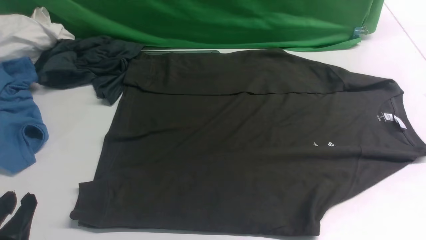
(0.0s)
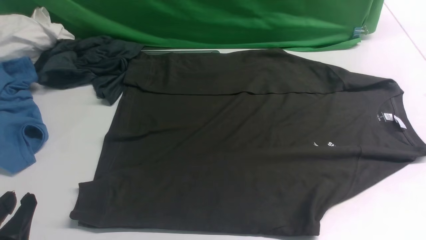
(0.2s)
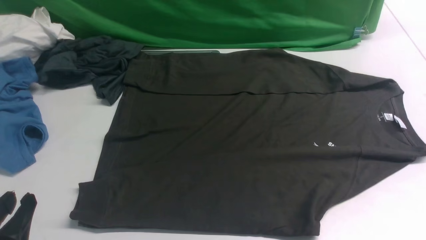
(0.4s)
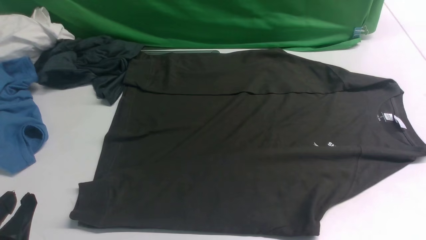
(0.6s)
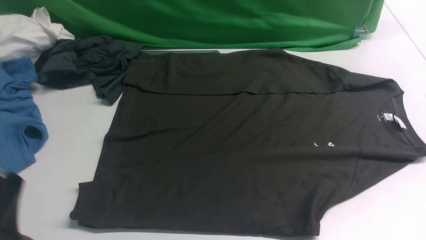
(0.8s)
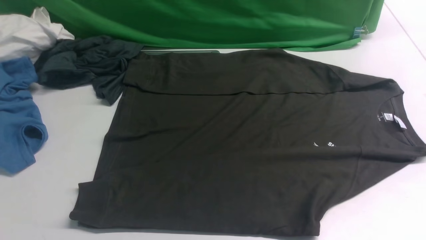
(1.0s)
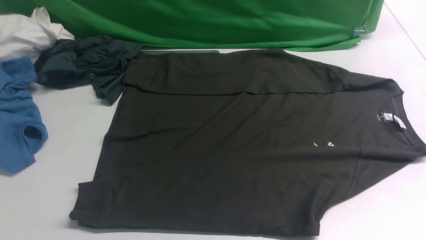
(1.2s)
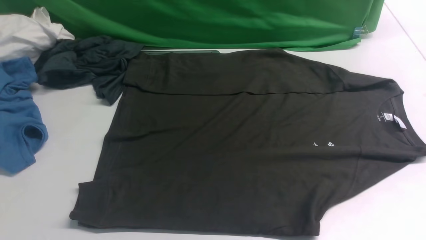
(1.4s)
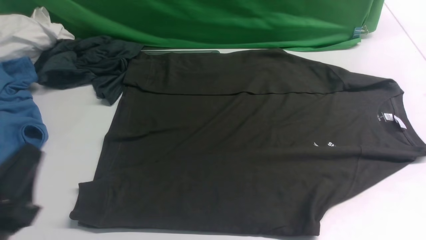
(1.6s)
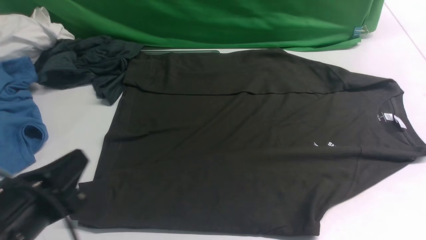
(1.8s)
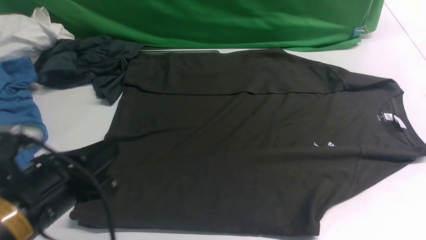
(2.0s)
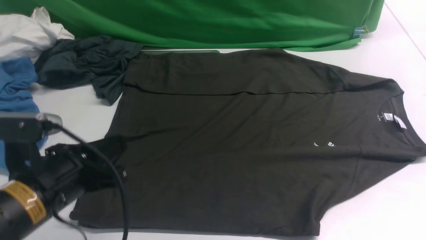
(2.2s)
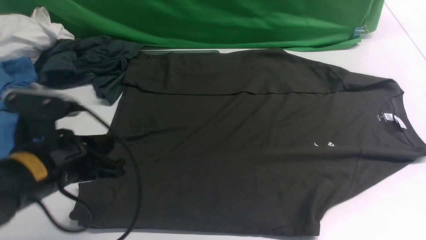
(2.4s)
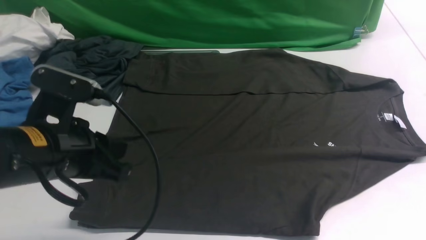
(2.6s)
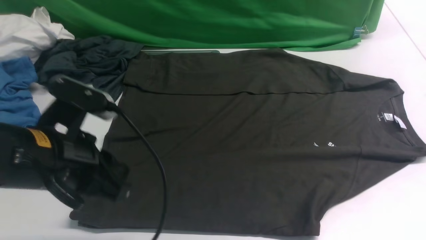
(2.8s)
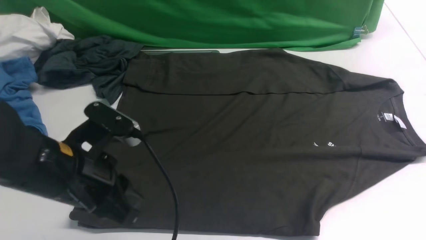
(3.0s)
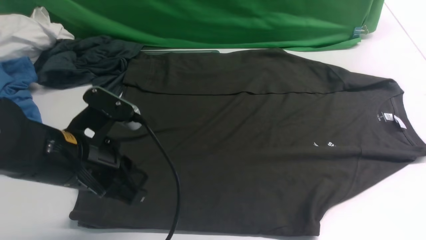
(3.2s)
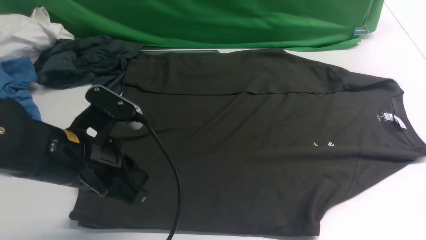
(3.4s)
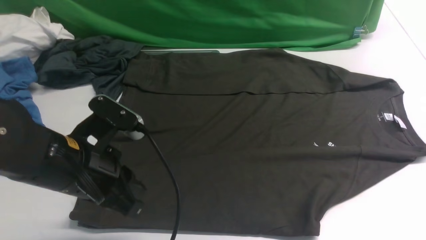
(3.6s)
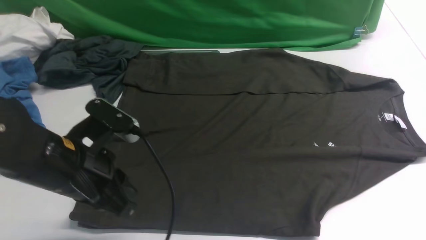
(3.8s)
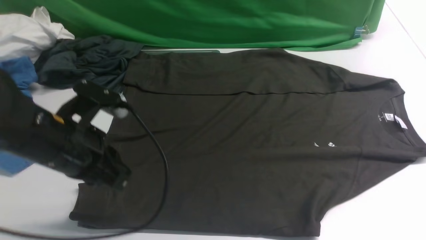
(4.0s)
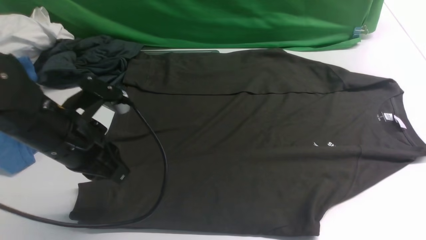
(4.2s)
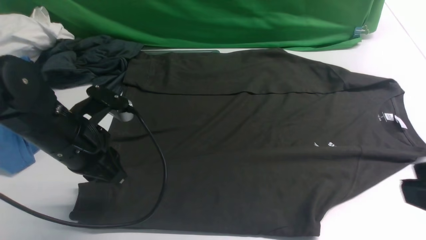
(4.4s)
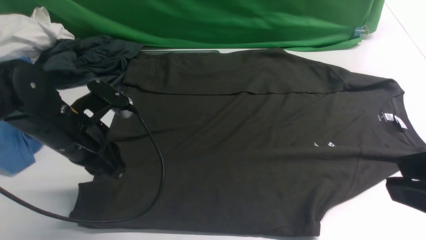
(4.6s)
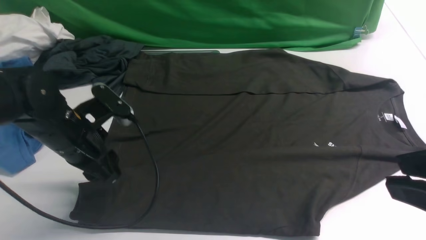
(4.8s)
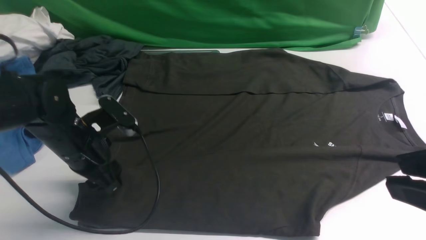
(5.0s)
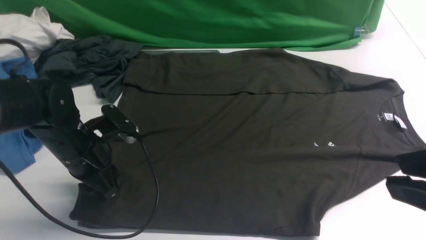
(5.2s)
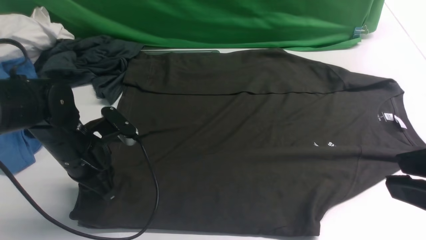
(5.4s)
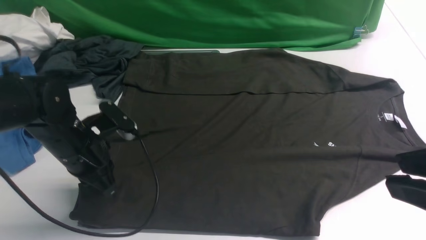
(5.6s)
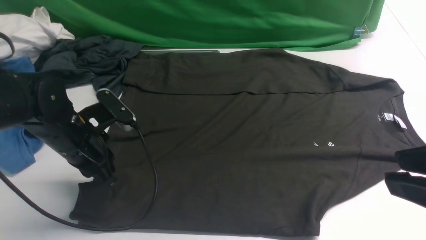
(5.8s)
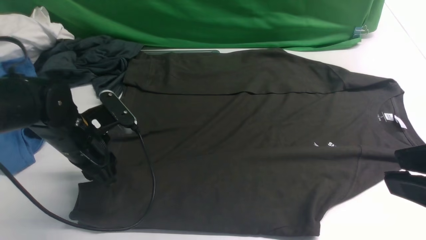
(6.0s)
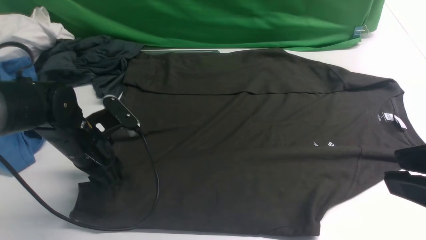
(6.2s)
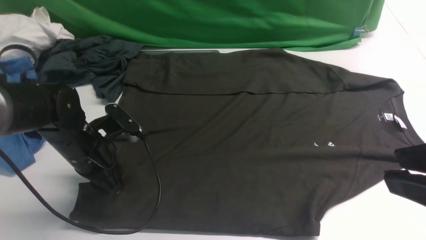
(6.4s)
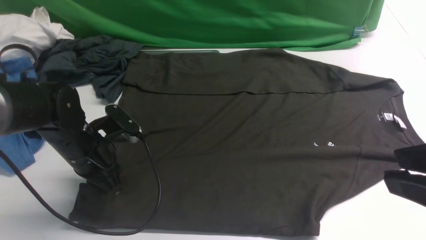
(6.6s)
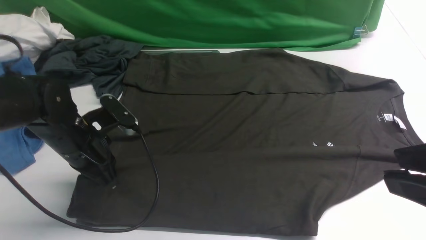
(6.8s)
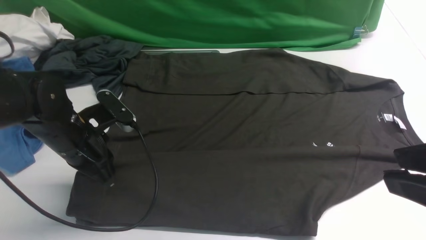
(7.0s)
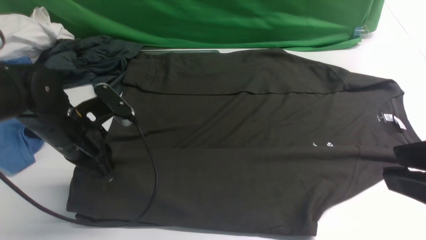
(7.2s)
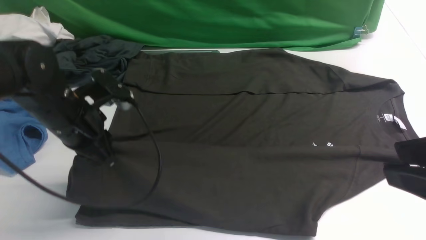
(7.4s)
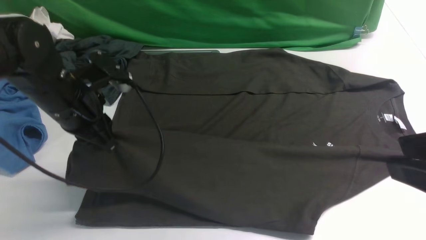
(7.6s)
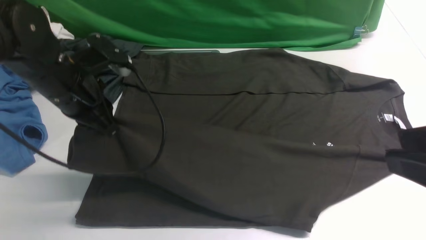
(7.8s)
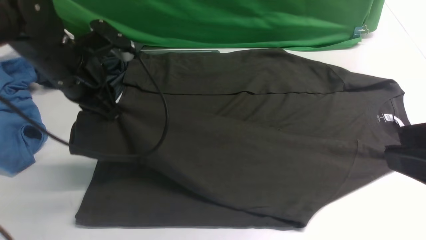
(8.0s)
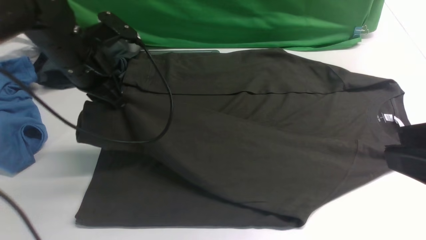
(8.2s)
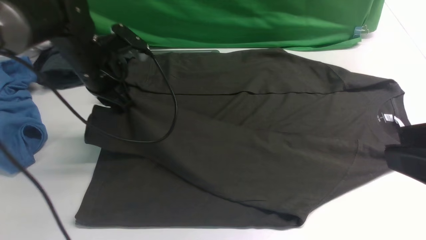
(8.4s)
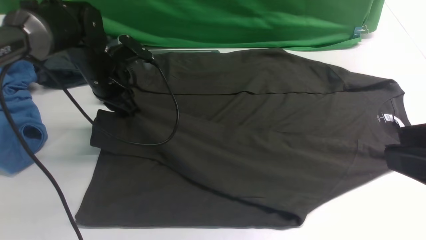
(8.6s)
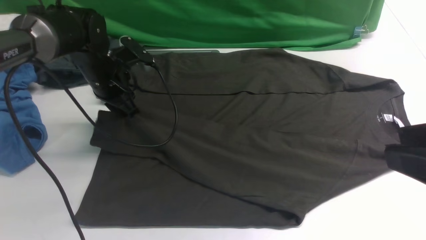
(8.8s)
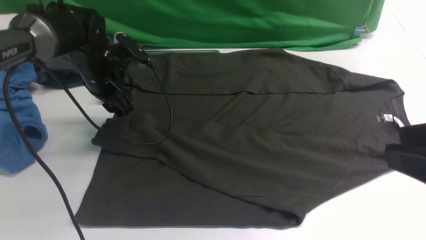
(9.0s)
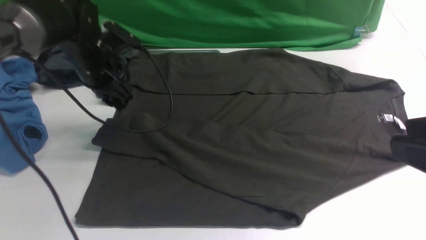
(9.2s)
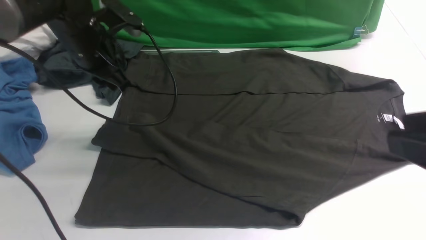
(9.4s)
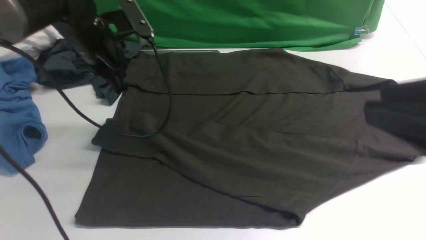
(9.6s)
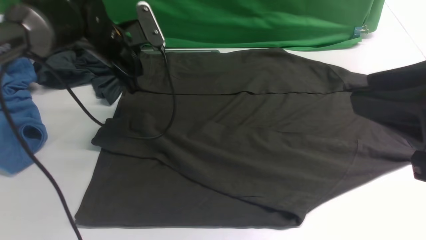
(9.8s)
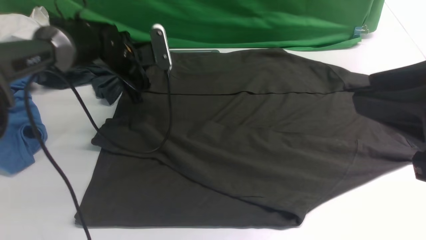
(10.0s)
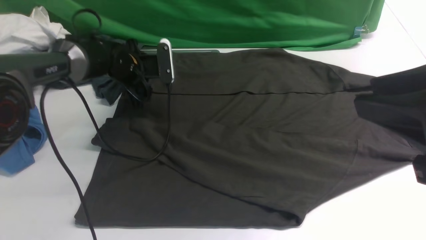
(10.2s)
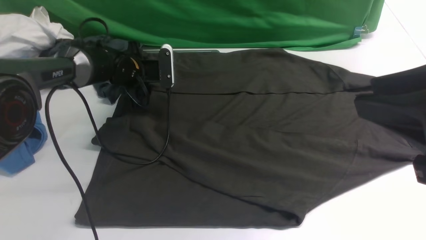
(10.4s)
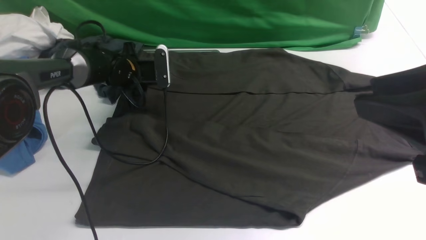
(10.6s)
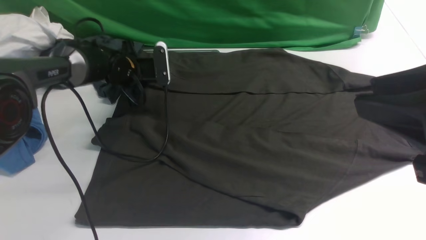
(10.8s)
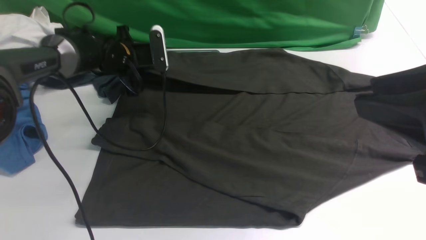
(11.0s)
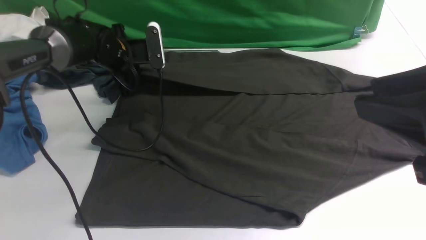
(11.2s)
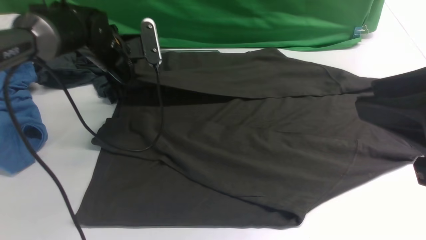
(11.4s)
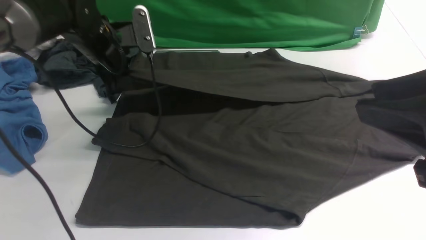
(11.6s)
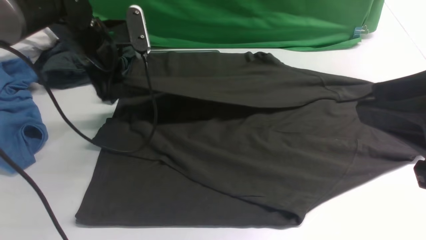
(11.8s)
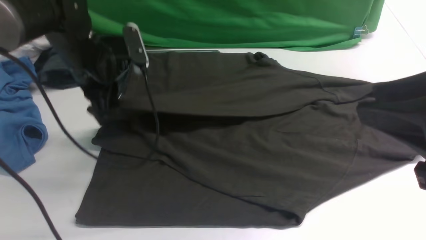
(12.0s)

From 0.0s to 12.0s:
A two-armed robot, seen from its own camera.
Step, from 0.0s to 7.2s: use the left arm to clamp the cuff closest to it.
Step, from 7.4s to 9.6s: use the left arm to drag and place the cuff at the centered position on the left edge of the fabric.
Step, from 10.0s to 11.0s: use the left arm to clamp the cuff farthest from it.
From 0.0s to 1.6s: The left gripper moves roughly 5 cm, and closes its fingers.
From 1.6s to 3.0s: The left gripper moves forward and to the right, roughly 10 cm.
From 3.0s to 4.4s: The left gripper shifts roughly 5 cm forward. Meanwhile the right gripper moves upward and to the left, roughly 20 cm.
From 4.4s to 6.0s: The left gripper goes some 5 cm downward, and opens up.
From 6.0s to 7.6s: The left gripper shifts some 10 cm upward, and closes up.
From 7.6s to 9.0s: The left gripper goes roughly 10 cm forward, and opens.
From 9.0s to 10.4s: The left gripper goes approximately 10 cm downward and forward, and closes, then reopens.
From 10.4s to 12.0s: The left gripper goes about 15 cm upward and backward, and closes its fingers.

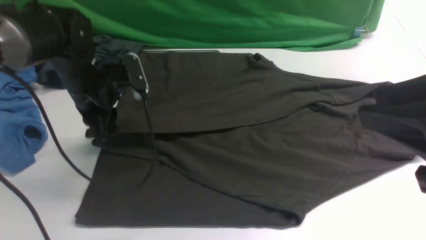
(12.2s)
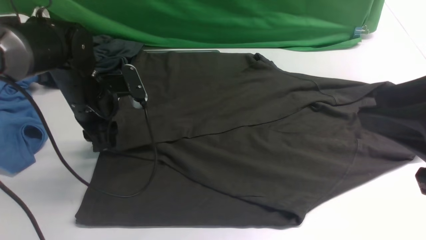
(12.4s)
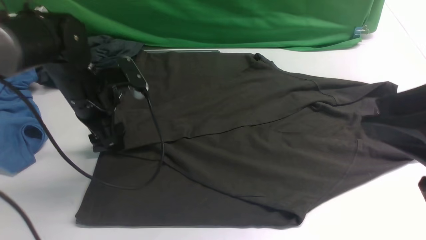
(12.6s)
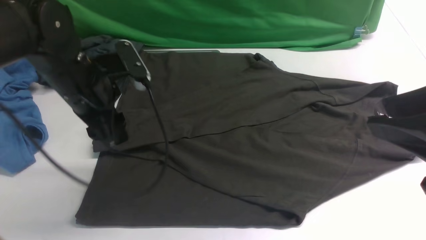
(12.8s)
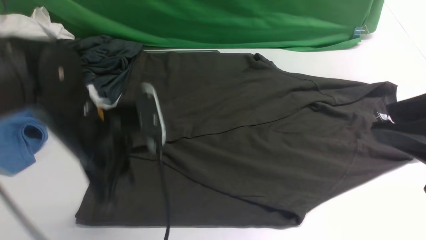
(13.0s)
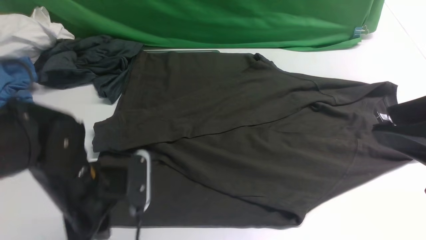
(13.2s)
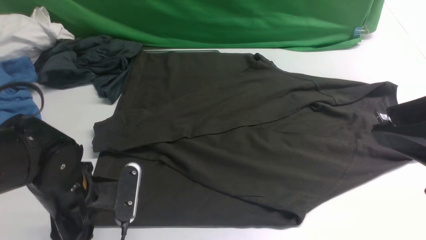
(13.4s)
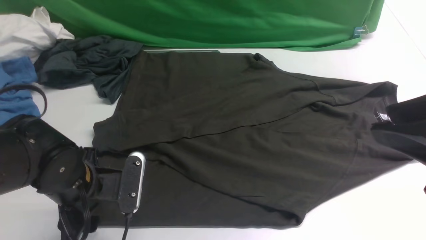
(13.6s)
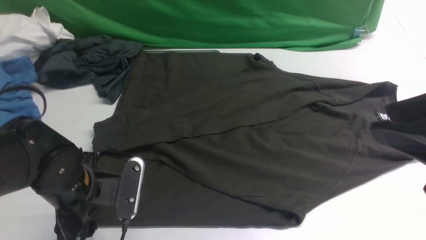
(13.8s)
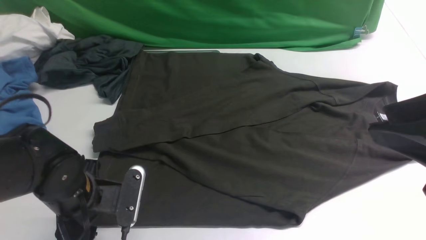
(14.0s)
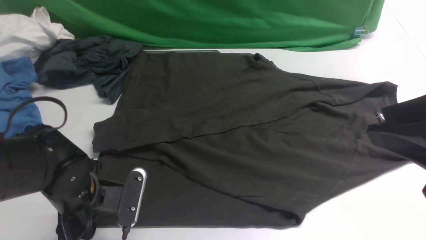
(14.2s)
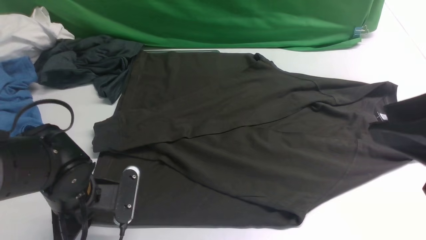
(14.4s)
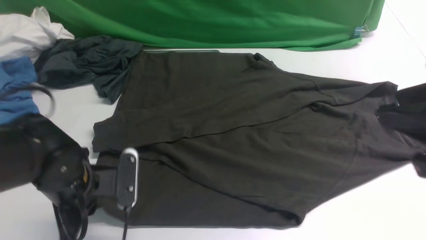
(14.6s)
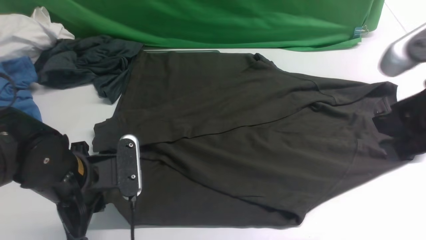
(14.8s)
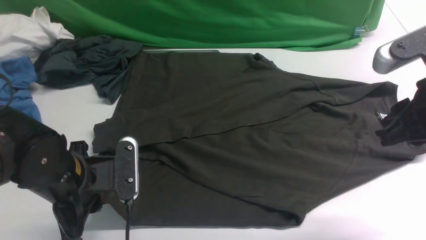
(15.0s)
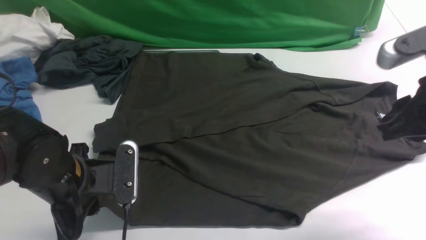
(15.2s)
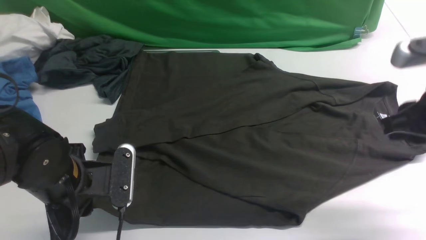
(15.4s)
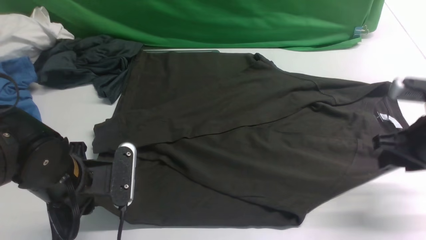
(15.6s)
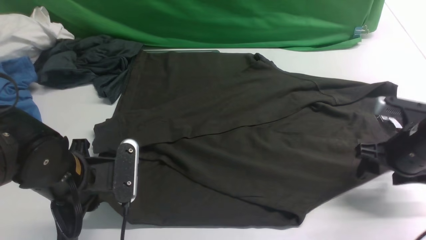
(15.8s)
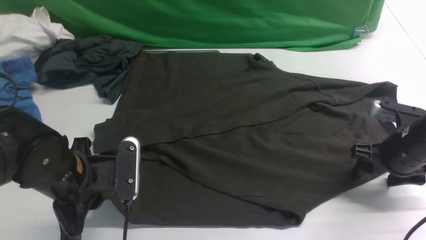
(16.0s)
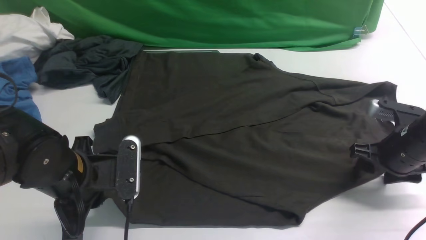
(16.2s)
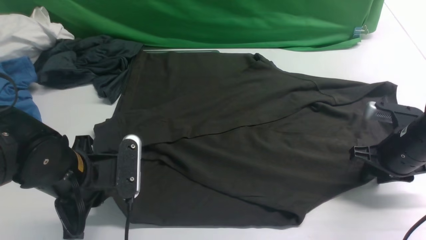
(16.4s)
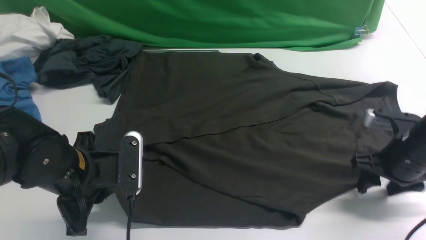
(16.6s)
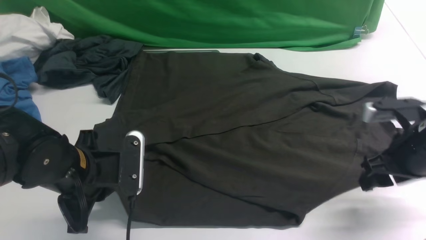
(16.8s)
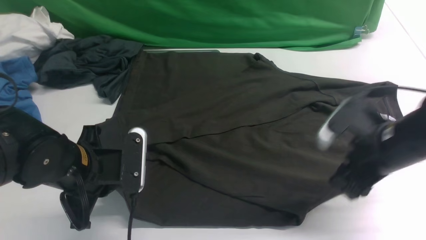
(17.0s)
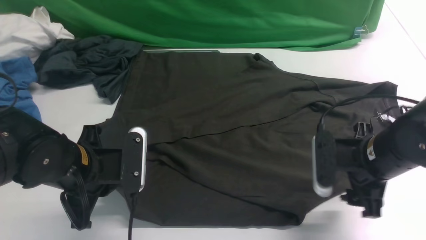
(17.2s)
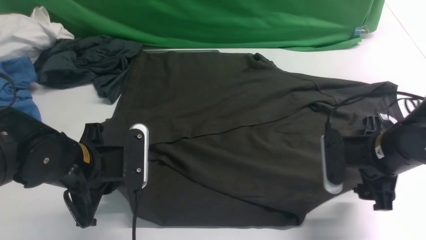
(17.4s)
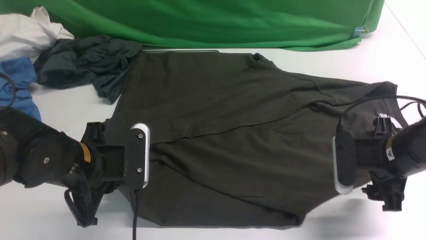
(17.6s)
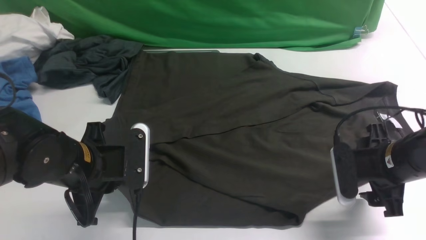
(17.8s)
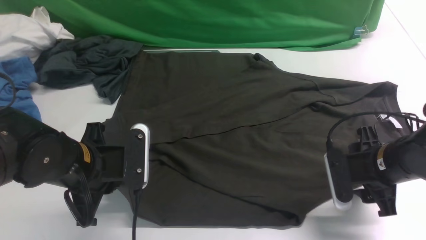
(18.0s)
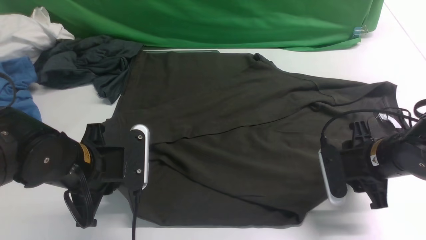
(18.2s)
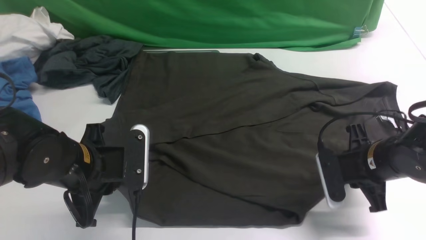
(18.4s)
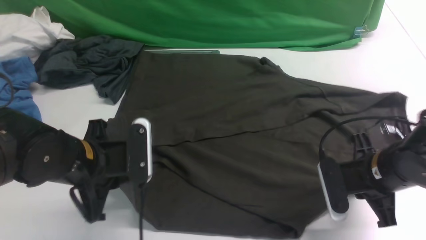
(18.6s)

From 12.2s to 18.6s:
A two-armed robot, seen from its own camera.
From 12.2s to 13.8s: The left gripper shifts roughly 15 cm backward, and opens its fingers.
From 13.8s to 15.4s: The right gripper moves forward, downward and to the right, approximately 20 cm, while the left gripper closes its fingers.
From 15.4s to 17.0s: The right gripper moves downward, about 5 cm, and opens its fingers.
From 17.0s to 18.6s: The right gripper closes.
